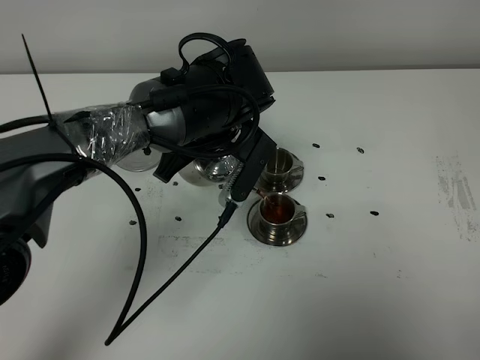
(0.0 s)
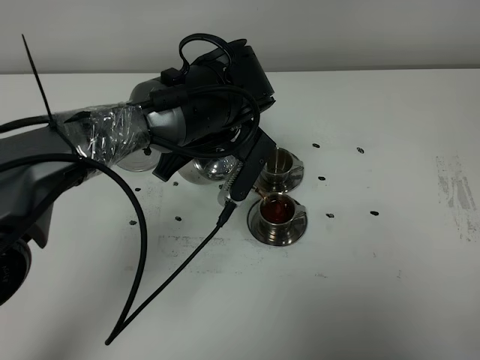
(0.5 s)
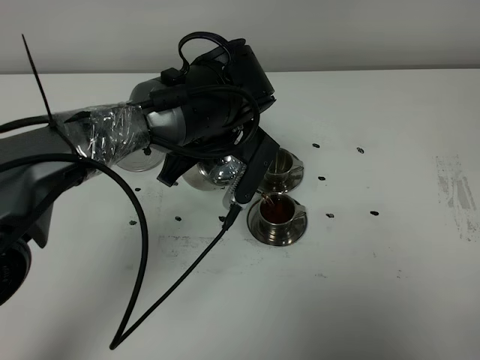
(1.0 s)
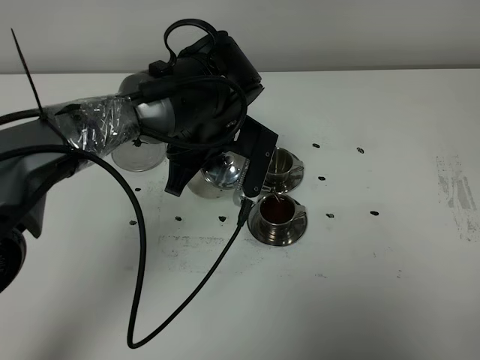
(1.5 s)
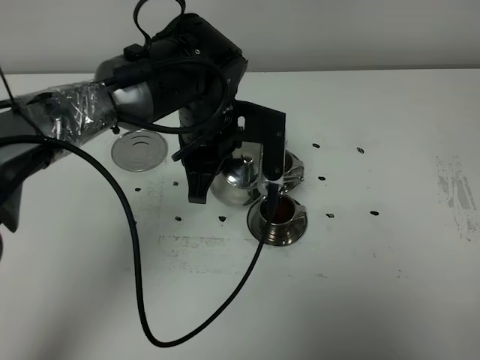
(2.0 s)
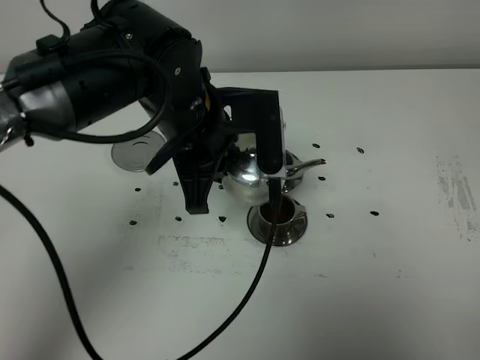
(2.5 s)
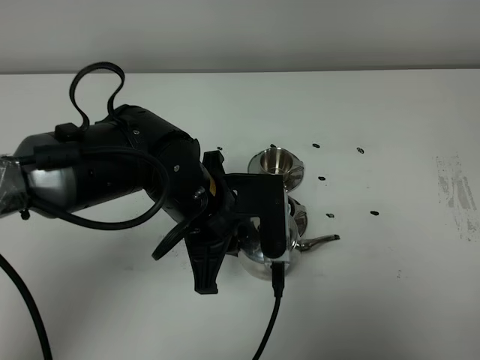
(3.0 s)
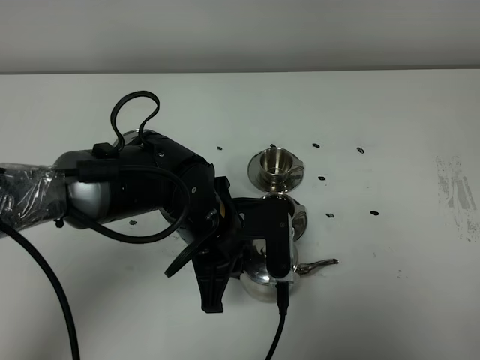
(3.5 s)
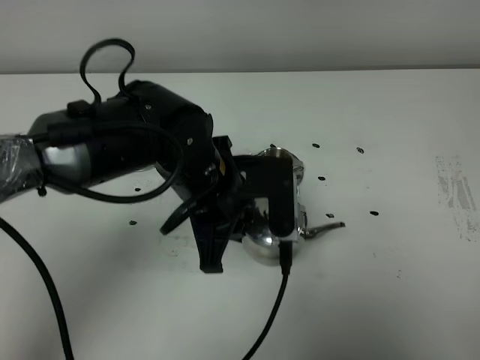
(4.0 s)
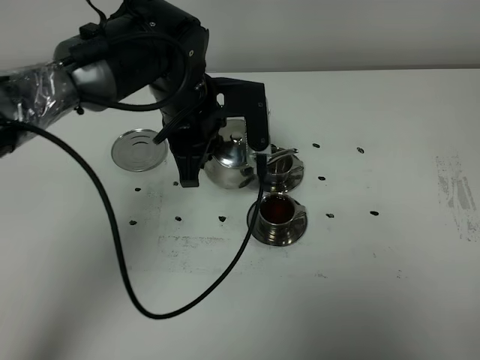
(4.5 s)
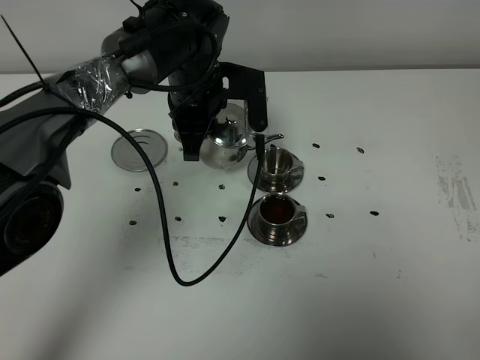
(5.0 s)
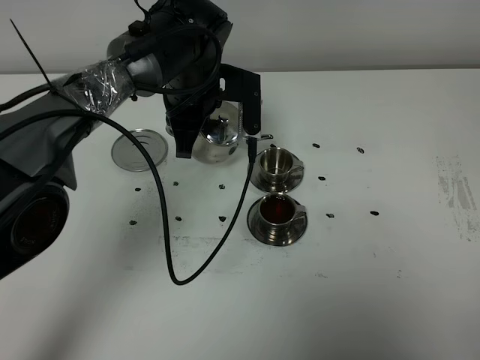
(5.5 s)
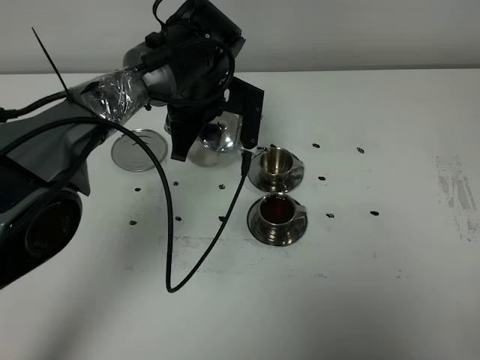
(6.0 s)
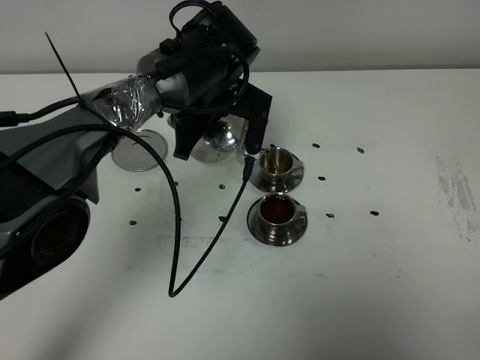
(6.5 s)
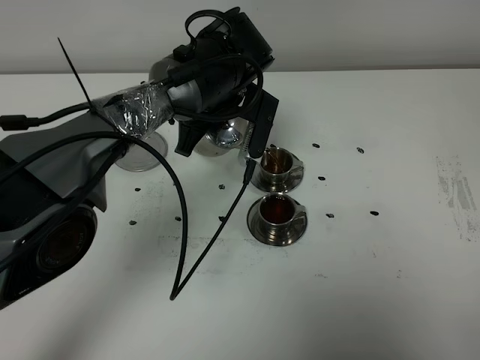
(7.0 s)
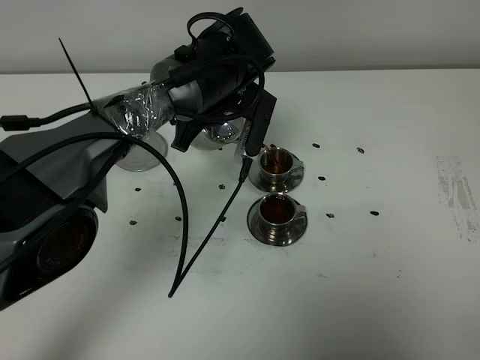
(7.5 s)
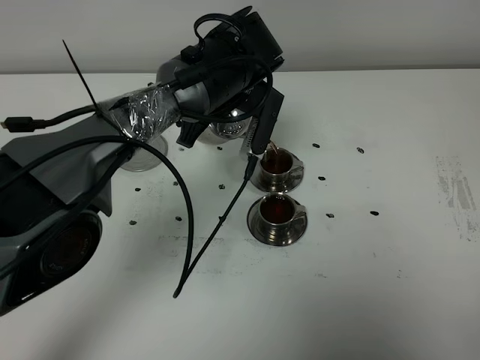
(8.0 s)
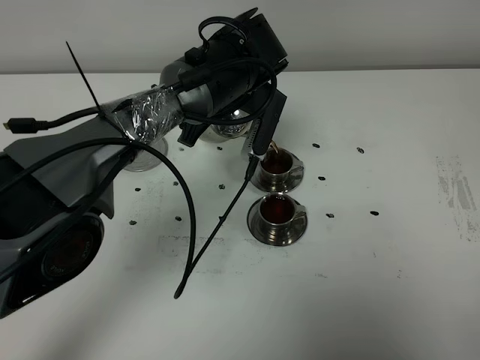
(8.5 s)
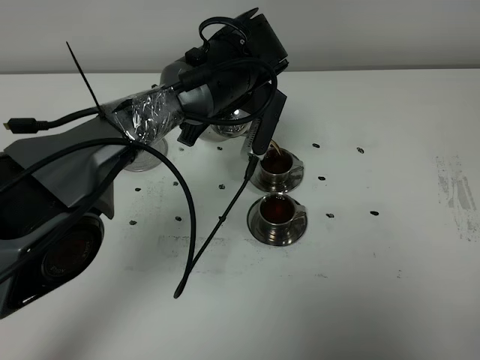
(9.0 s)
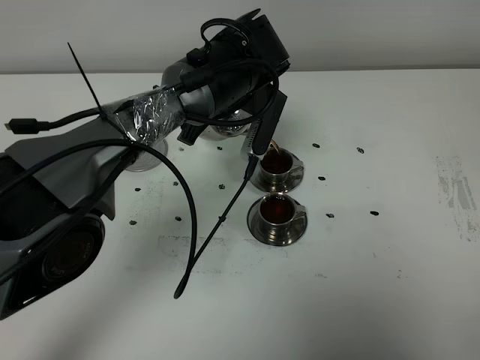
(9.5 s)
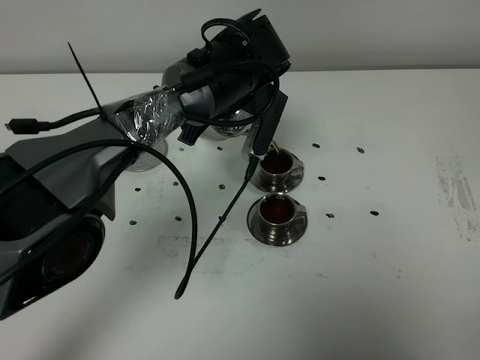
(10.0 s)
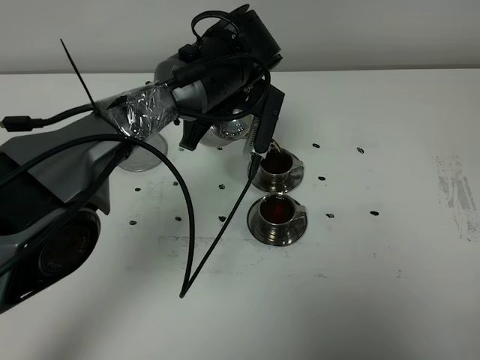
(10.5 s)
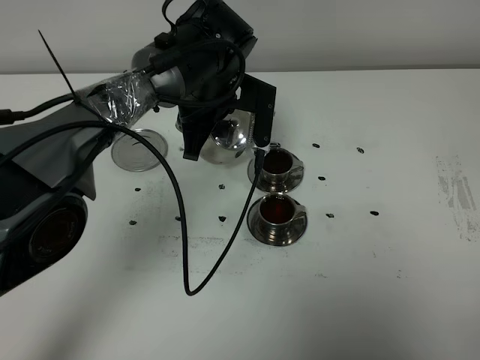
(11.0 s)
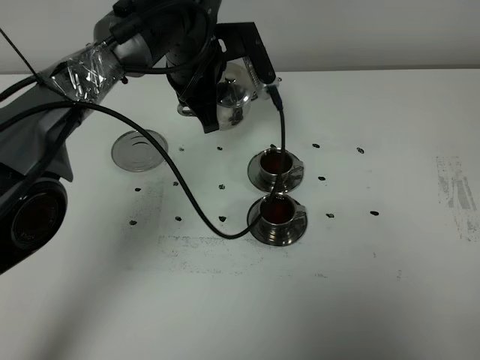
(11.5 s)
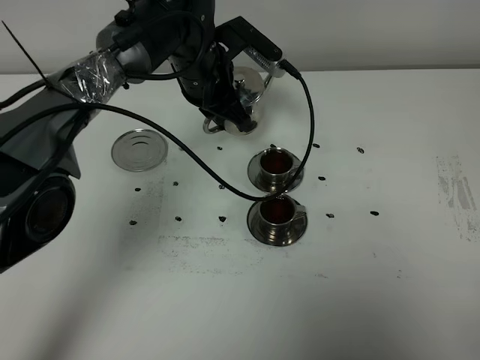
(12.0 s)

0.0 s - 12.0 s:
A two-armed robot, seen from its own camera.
Task of the whole recording: grasp the stainless steel teapot and pour the tea into the two stainless steel teacups one by one, put the stainless steel teapot back in its original place.
Step, 2.0 s - 11.0 s: Pour tea into the teacup with the left gripper.
2.0 s - 4.0 s: The left gripper goes up and down, about 10 cm each way, reversing 2 times.
4.0 s - 6.0 s: The left gripper heads forward, covering roughly 15 cm.
8.0 s - 10.0 s: Neither gripper changes place.
10.0 s - 12.0 s: The left gripper shifts by approximately 5 cm.

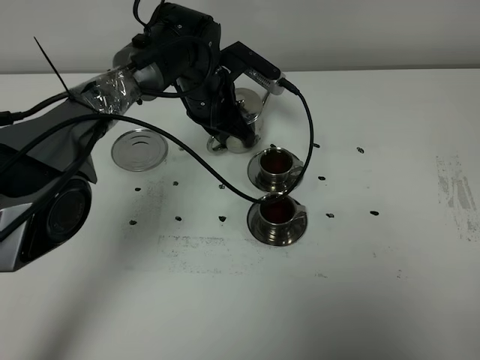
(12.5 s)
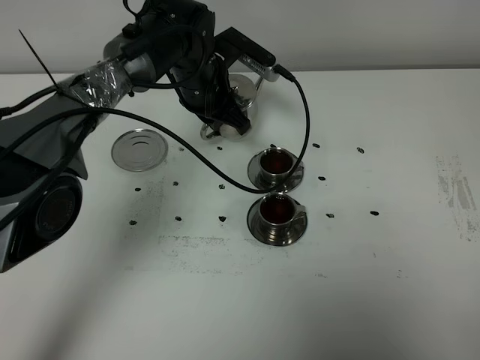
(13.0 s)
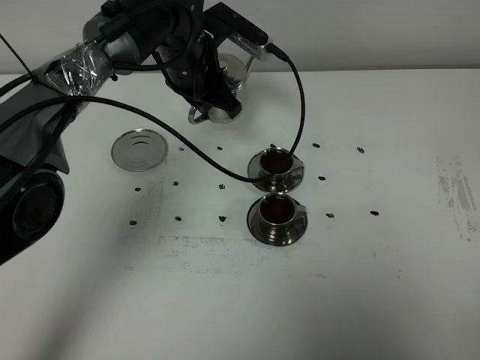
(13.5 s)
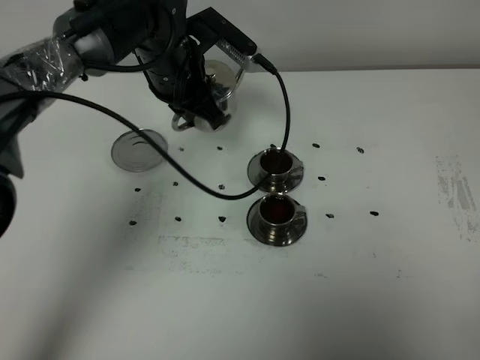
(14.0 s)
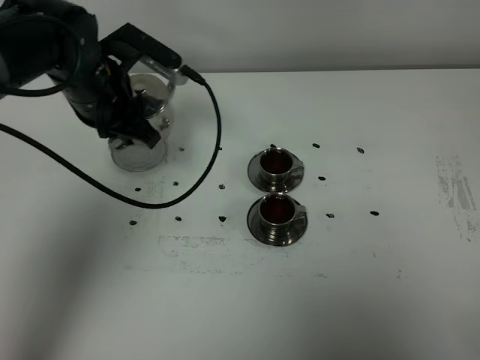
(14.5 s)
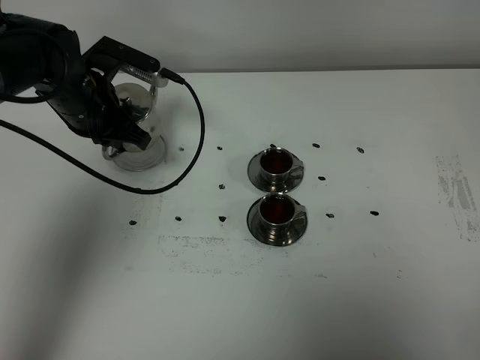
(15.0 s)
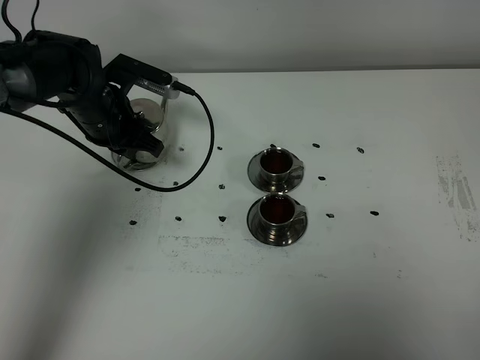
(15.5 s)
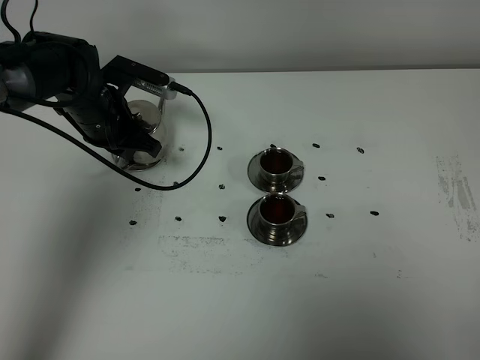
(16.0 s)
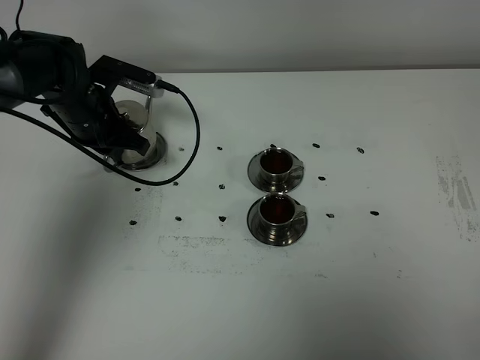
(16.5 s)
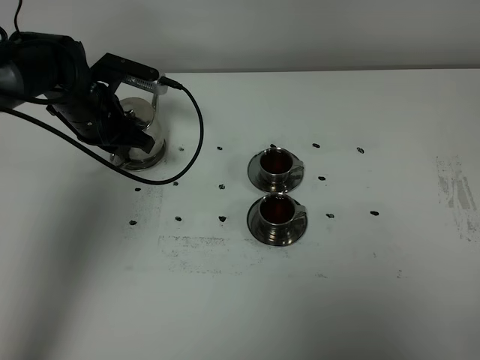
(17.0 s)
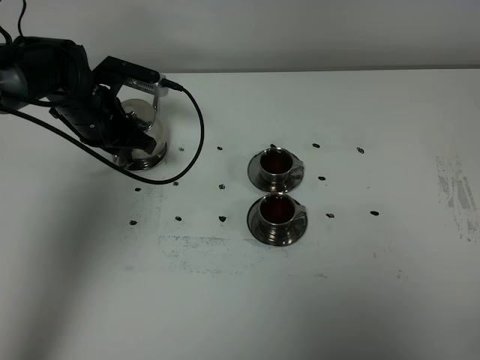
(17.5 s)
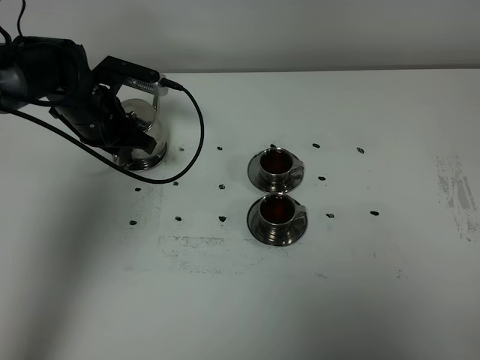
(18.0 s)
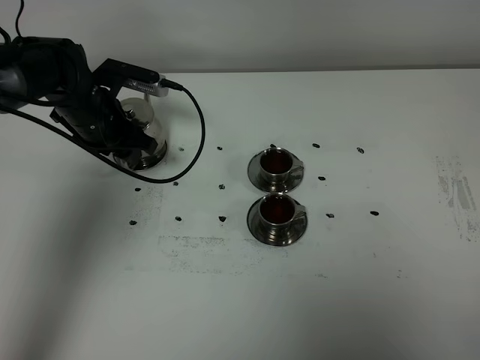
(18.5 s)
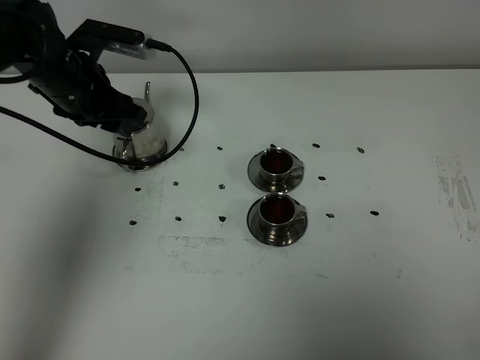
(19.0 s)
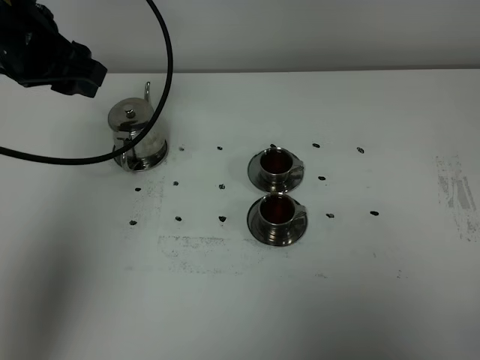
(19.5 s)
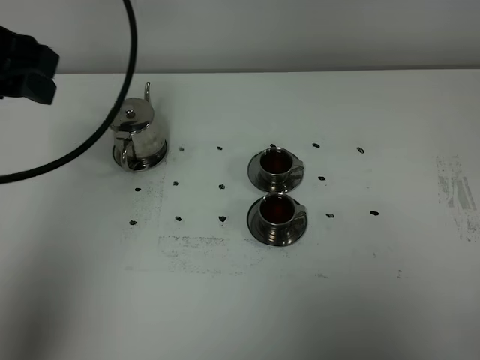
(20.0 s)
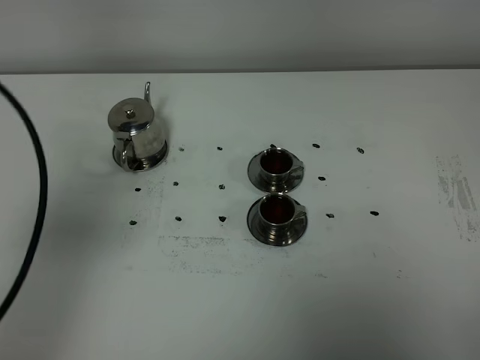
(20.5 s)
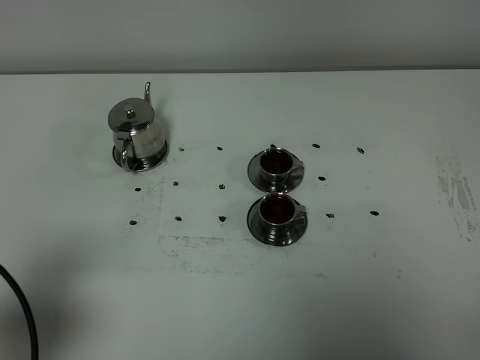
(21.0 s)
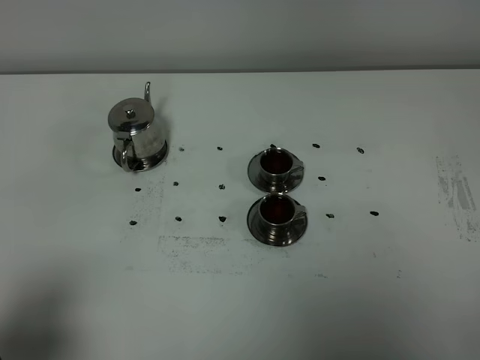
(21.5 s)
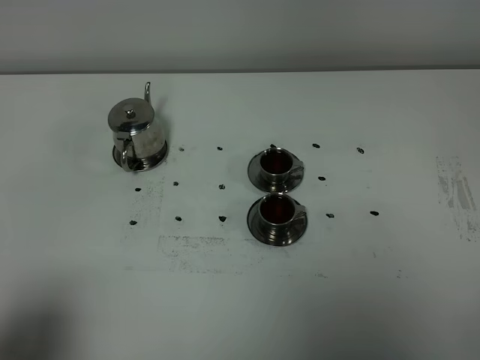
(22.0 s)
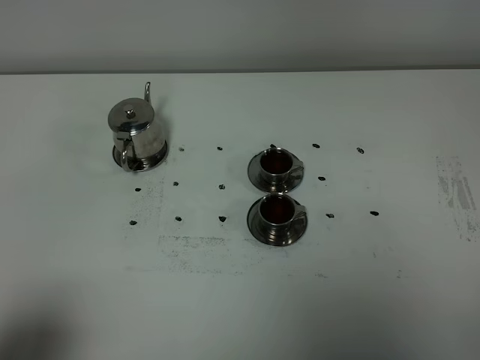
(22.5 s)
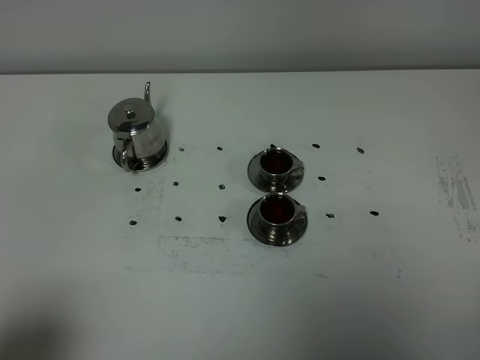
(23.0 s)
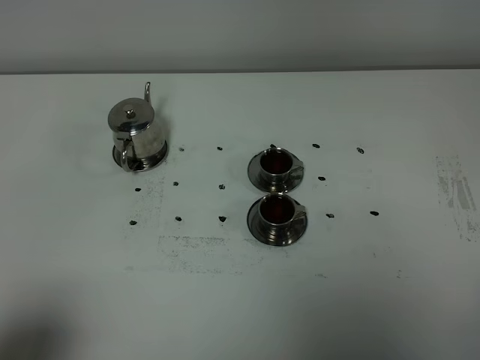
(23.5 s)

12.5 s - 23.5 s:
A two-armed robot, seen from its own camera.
Task of the whole recording: grasp the stainless steel teapot and pour the tea into the two stainless steel teacups one by one, put the stainless steel teapot back in its original place.
12.5 s - 14.5 s: The left gripper travels to the left, backward and upward by approximately 15 cm.
14.5 s - 16.0 s: The left gripper heads downward, covering about 5 cm.
16.0 s - 18.0 s: The grippers make only small movements.
18.0 s - 20.0 s: The left gripper travels upward and backward by some 30 cm, and opens.
20.0 s - 21.5 s: The left gripper goes about 30 cm backward and downward.
